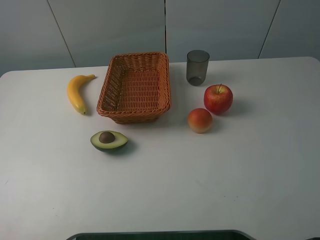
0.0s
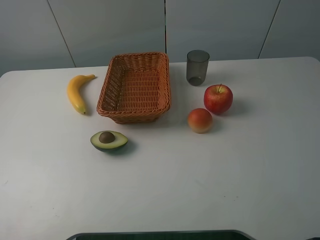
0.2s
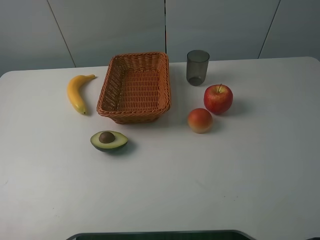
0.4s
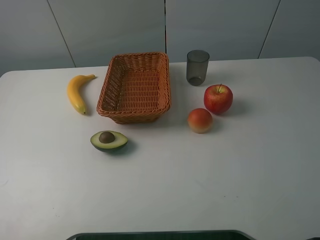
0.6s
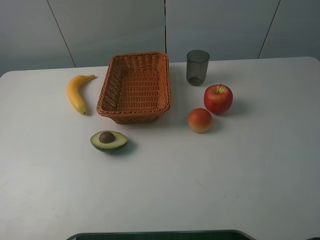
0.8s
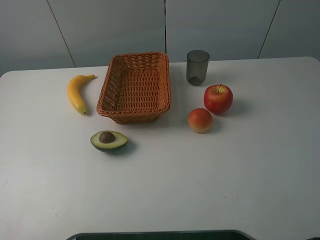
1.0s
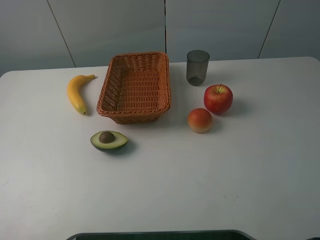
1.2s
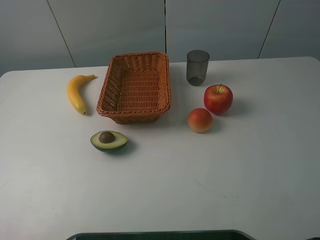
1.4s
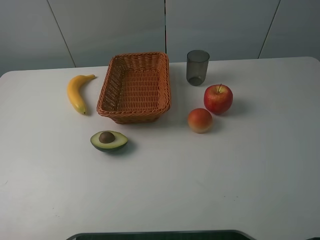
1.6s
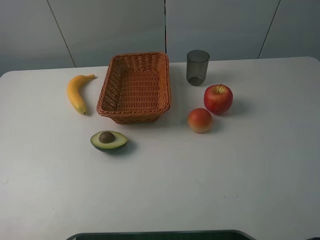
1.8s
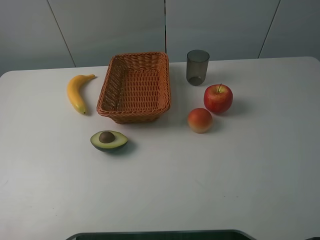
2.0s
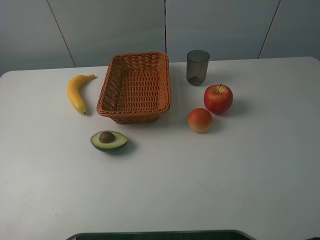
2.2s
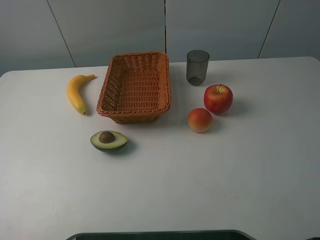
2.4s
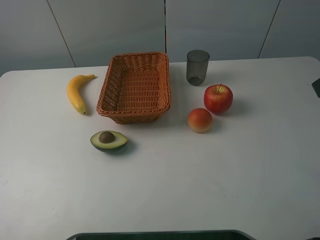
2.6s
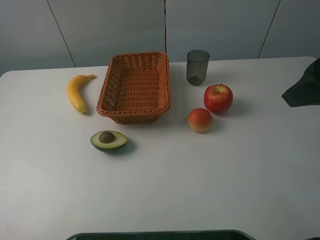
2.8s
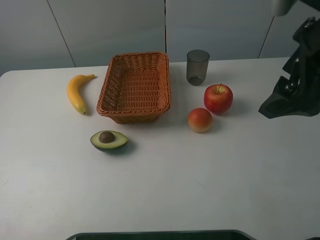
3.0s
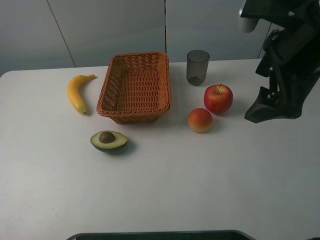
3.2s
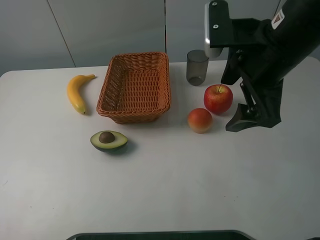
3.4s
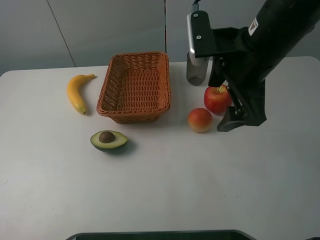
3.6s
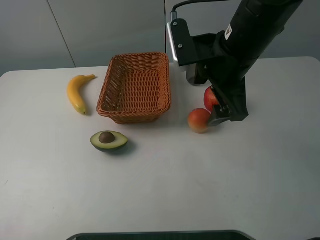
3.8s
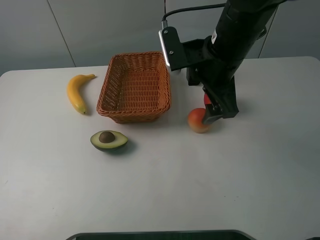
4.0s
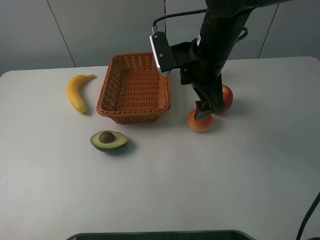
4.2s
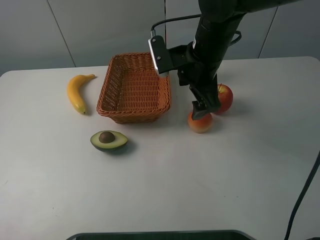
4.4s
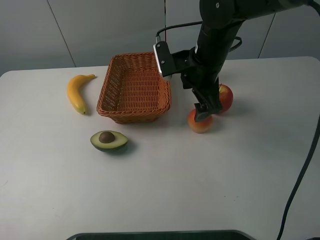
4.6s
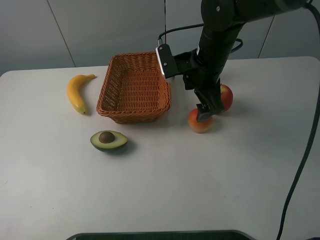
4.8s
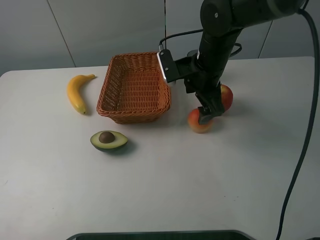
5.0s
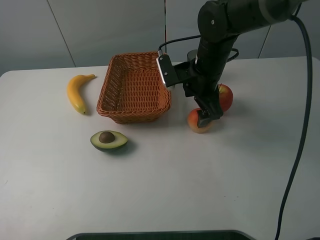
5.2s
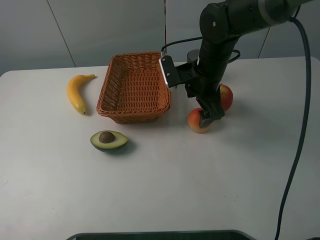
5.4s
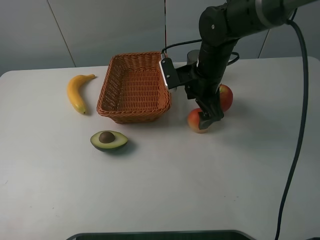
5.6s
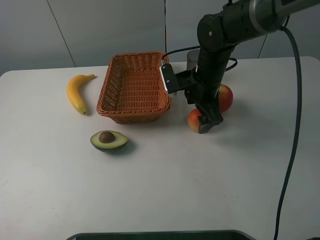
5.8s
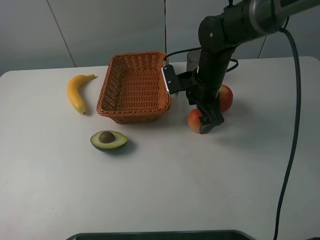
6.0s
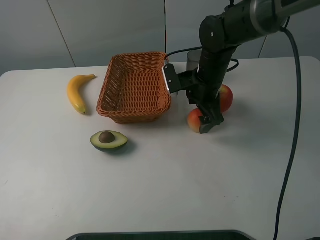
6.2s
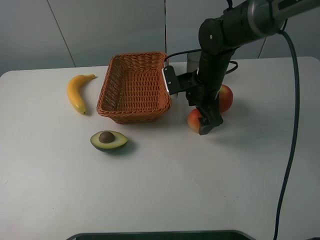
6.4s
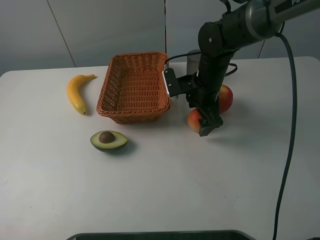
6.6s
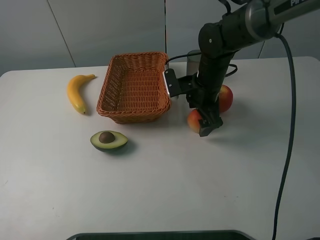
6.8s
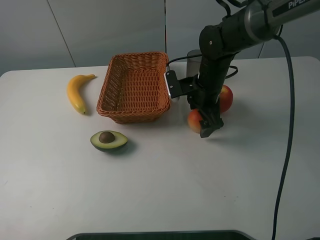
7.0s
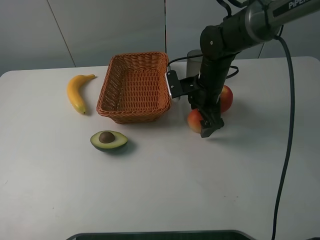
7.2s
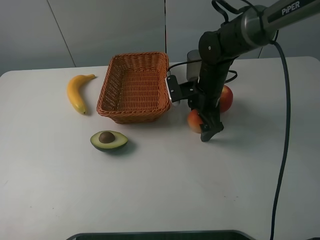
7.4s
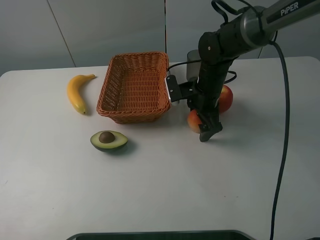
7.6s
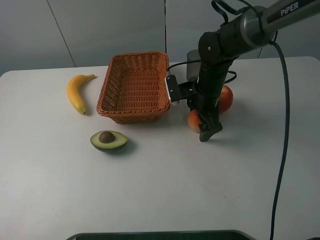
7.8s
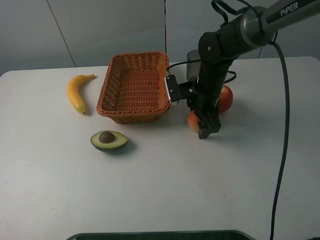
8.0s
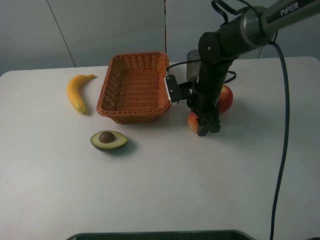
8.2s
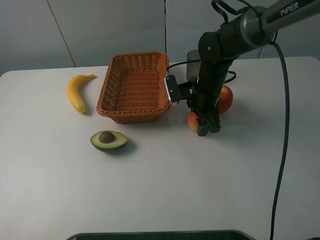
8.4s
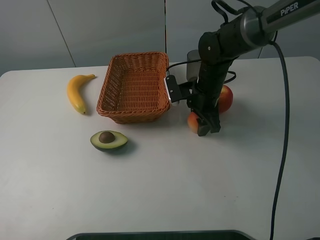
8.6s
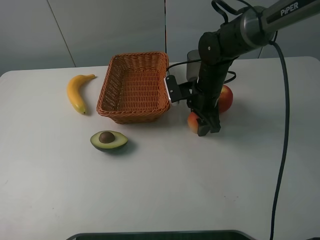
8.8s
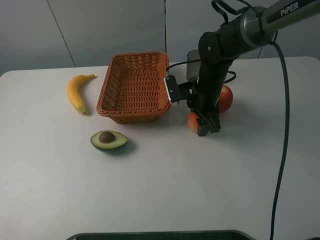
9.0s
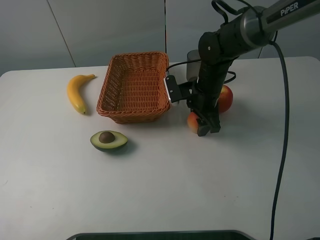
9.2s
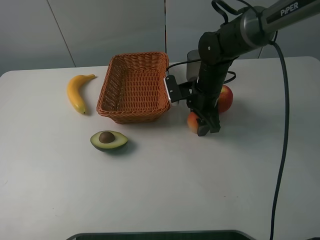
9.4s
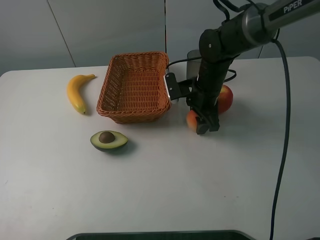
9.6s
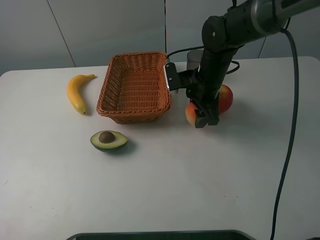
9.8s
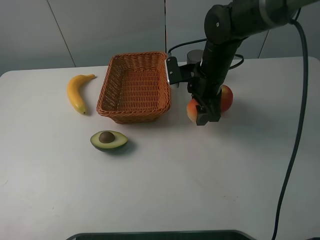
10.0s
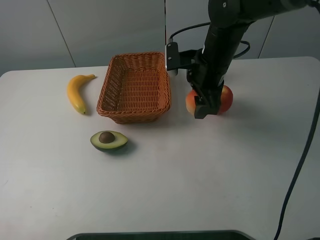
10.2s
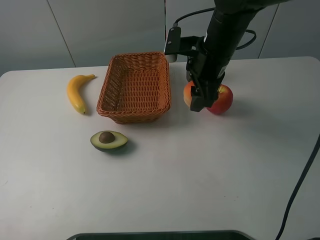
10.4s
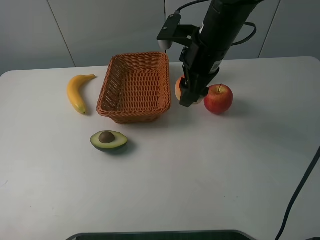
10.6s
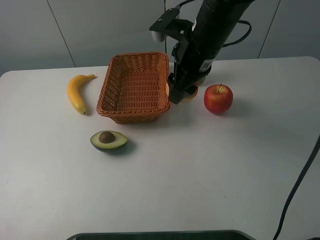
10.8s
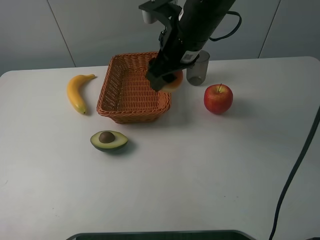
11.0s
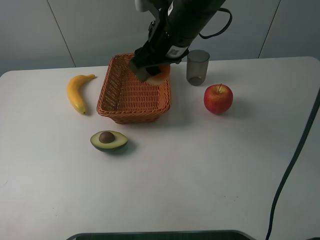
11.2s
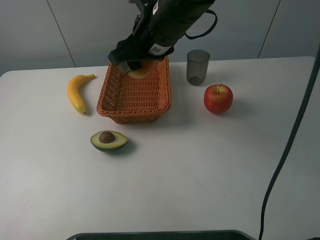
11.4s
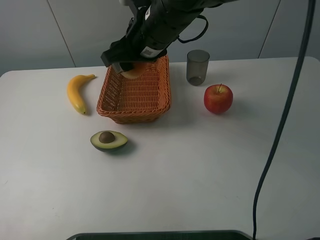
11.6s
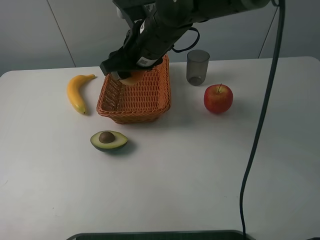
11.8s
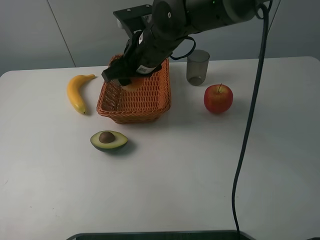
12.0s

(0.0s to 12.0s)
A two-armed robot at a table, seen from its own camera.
0.0s - 1.6s: Neither gripper changes place.
1.6s - 3.0s: The right gripper heads forward and to the left, covering some 20 cm.
3.0s - 4.4s: The right gripper goes some 20 cm forward, to the left and downward.
4.4s - 6.0s: The right gripper goes roughly 5 cm downward.
6.0s - 7.6s: The grippers stay close to where they were, moving slightly.
9.0s - 10.4s: The right gripper goes approximately 10 cm upward.
10.4s - 12.0s: The right gripper heads to the left, covering some 10 cm.

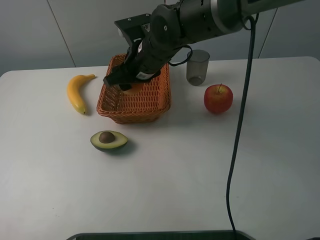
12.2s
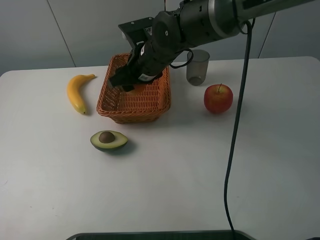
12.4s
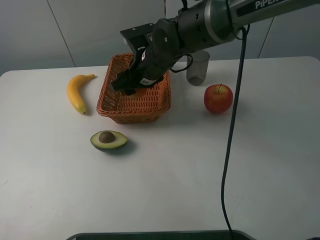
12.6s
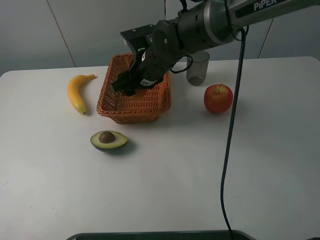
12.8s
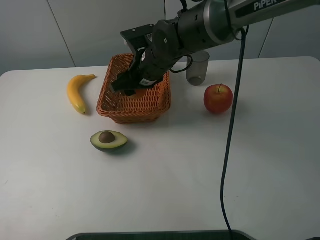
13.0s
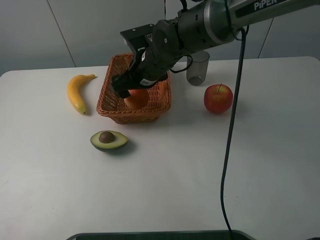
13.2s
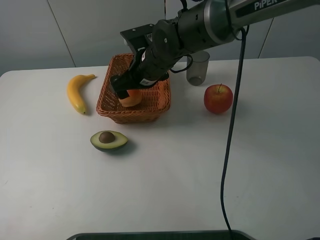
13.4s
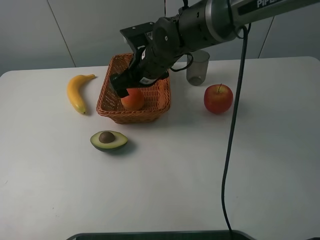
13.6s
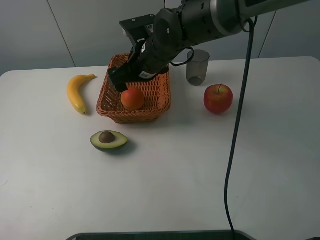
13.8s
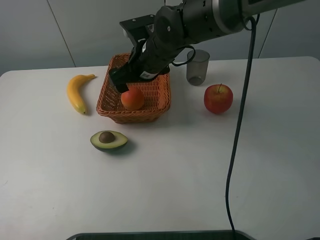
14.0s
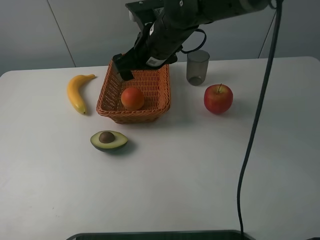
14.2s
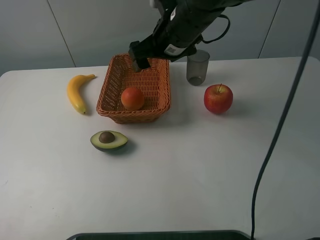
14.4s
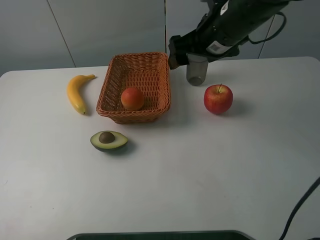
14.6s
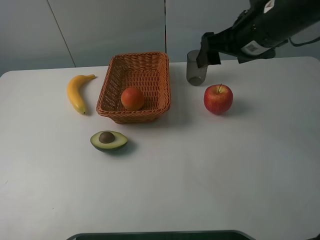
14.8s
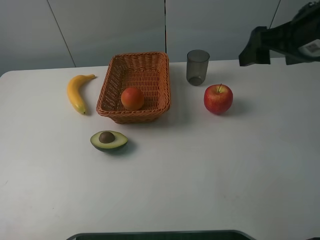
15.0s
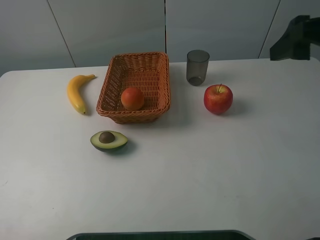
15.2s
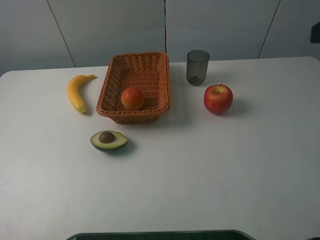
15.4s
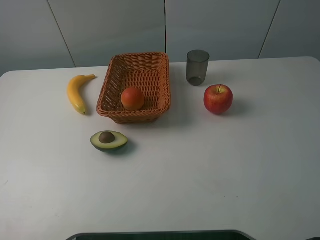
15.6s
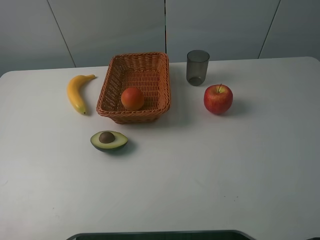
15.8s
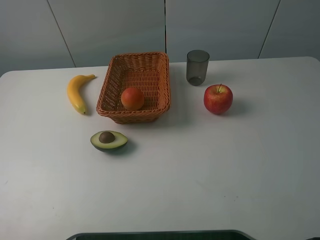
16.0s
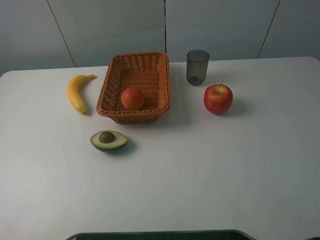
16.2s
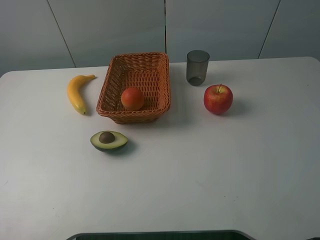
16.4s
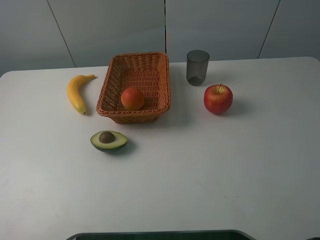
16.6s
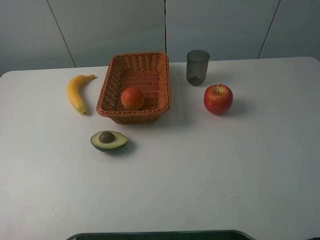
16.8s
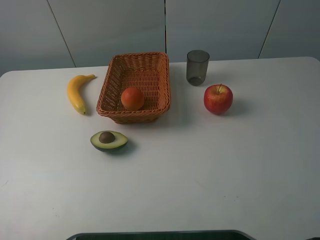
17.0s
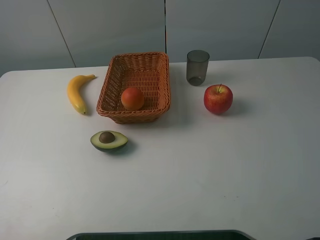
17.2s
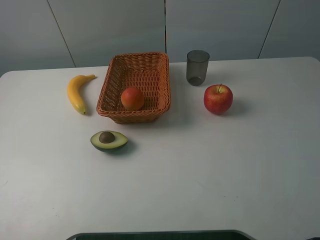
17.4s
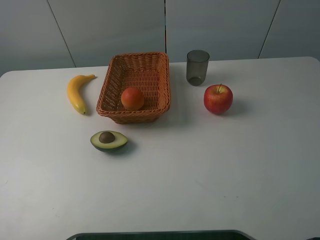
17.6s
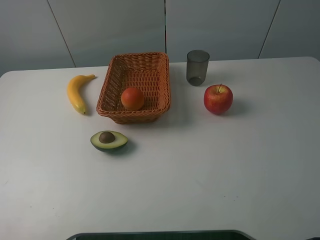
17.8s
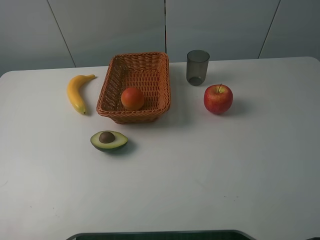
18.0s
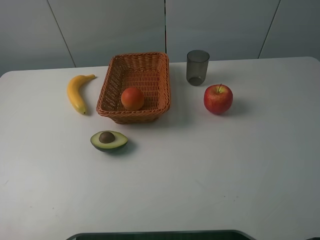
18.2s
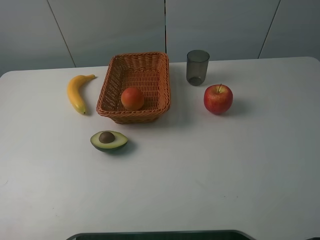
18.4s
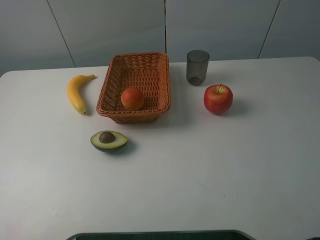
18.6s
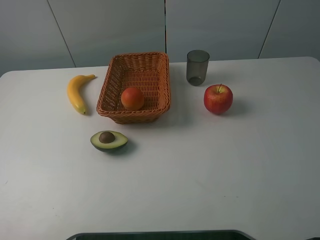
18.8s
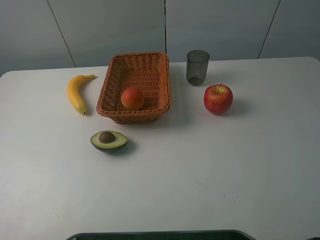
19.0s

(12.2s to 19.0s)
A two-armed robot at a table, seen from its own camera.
12.2s - 13.6s: The right gripper opens up.
13.6s - 15.0s: The right gripper shifts about 30 cm to the right, upward and backward.
15.0s - 16.2s: The right gripper heads backward, covering about 25 cm.

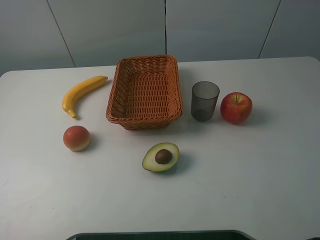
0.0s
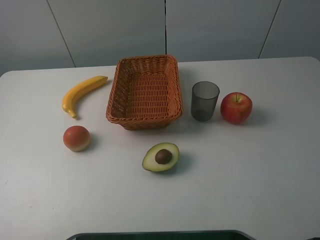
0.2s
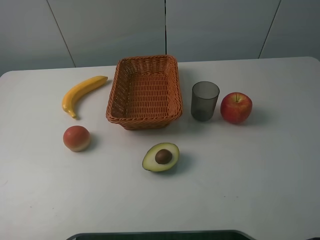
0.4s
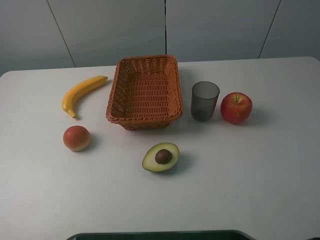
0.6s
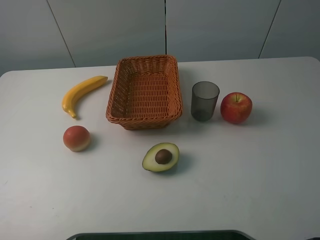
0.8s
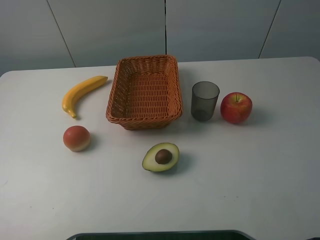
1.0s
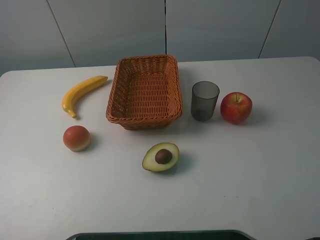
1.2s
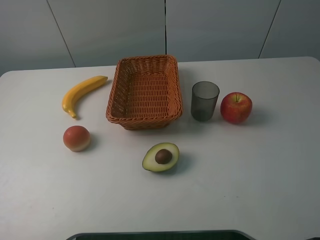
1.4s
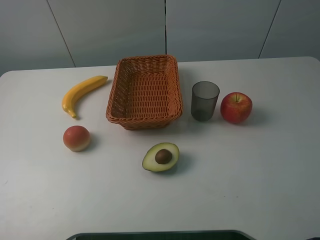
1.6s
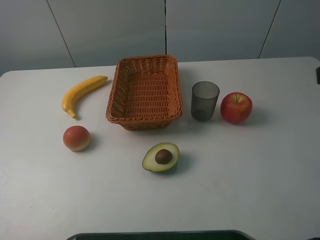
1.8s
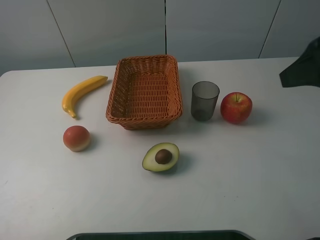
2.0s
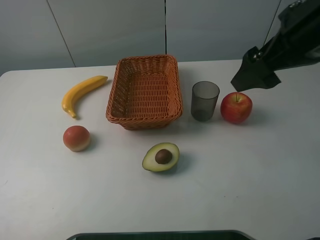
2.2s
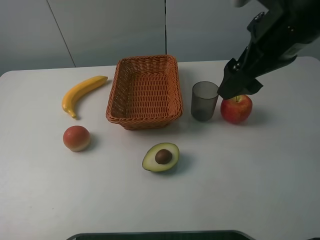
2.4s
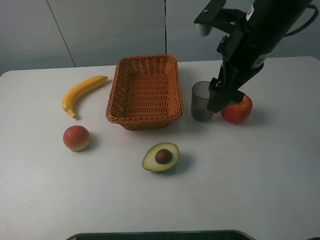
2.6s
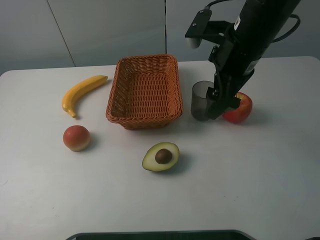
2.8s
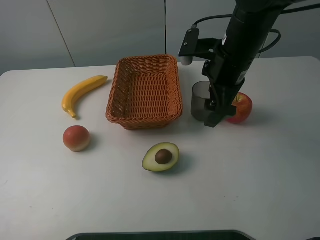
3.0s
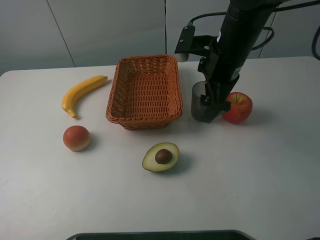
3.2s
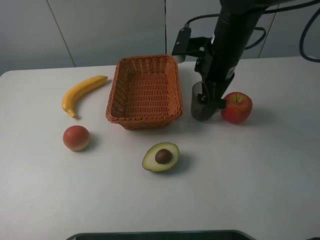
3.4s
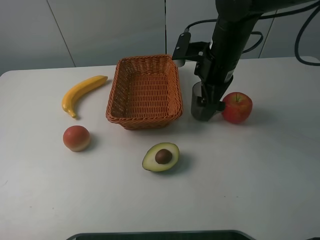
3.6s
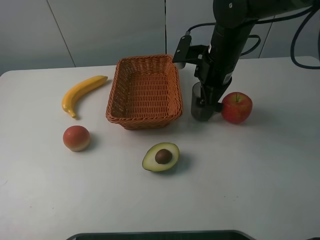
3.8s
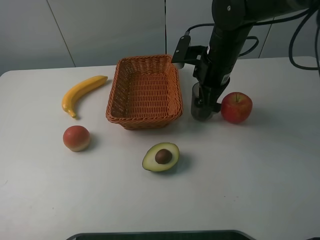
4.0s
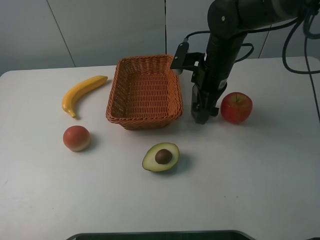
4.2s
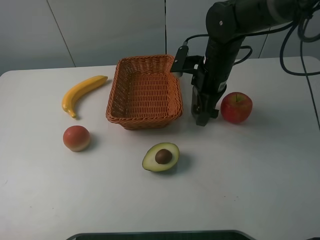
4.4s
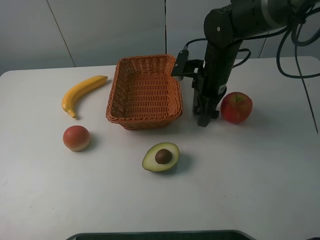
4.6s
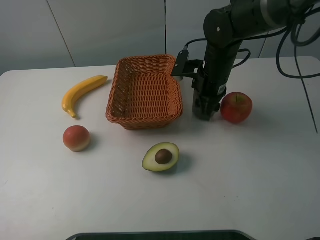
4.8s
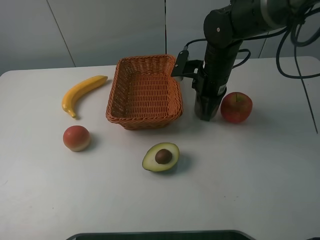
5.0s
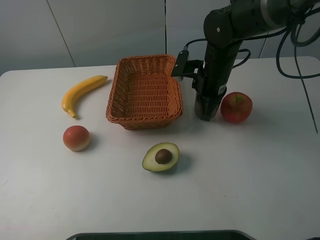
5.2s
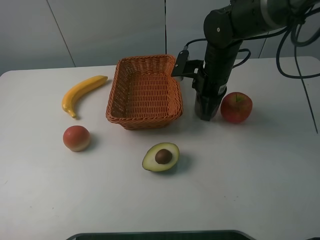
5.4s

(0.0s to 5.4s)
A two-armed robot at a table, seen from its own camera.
1.4s - 2.8s: The right gripper shifts about 30 cm forward, to the left and downward.
2.8s - 4.0s: The right gripper shifts roughly 10 cm downward and forward.
4.0s - 5.4s: The right gripper closes its fingers.
